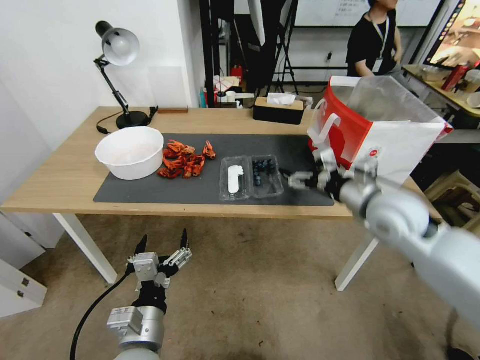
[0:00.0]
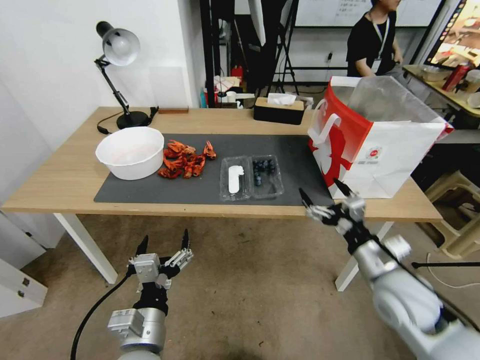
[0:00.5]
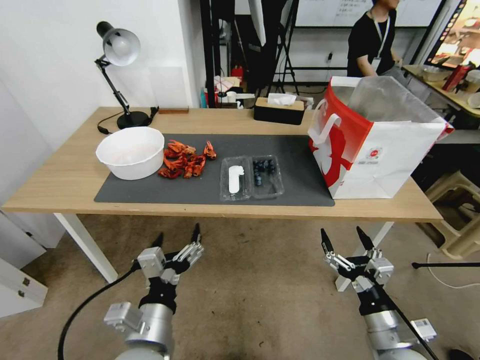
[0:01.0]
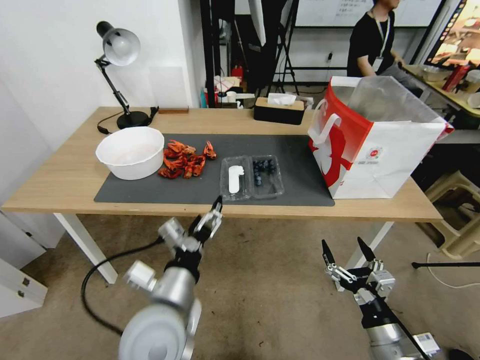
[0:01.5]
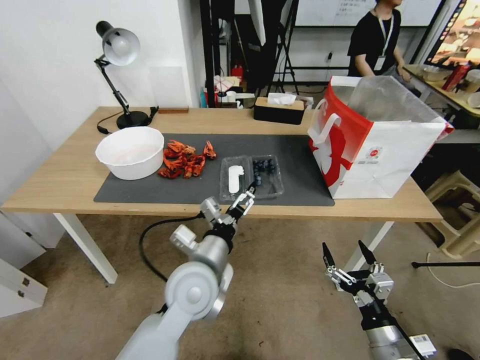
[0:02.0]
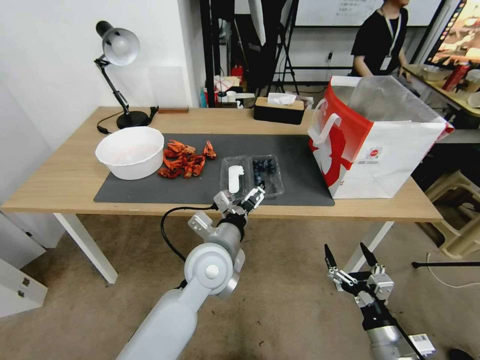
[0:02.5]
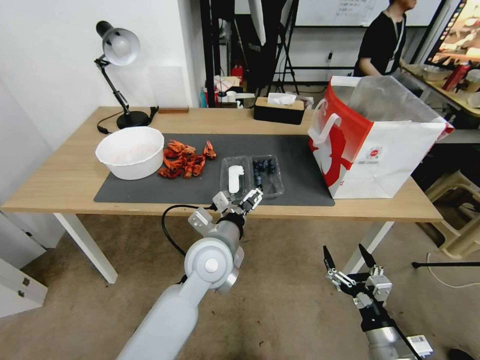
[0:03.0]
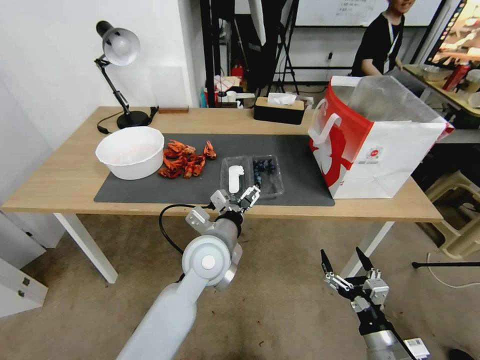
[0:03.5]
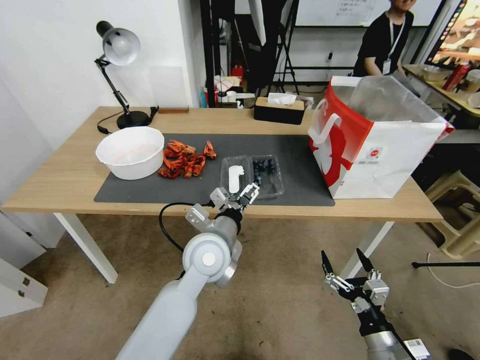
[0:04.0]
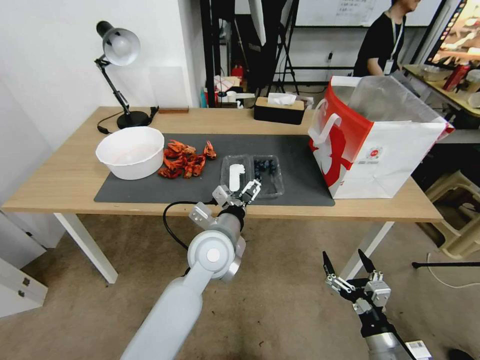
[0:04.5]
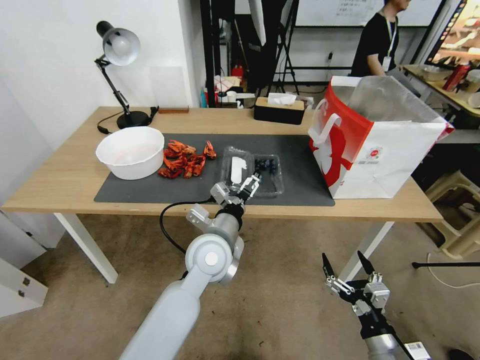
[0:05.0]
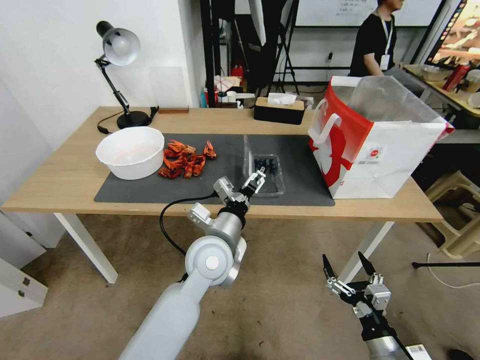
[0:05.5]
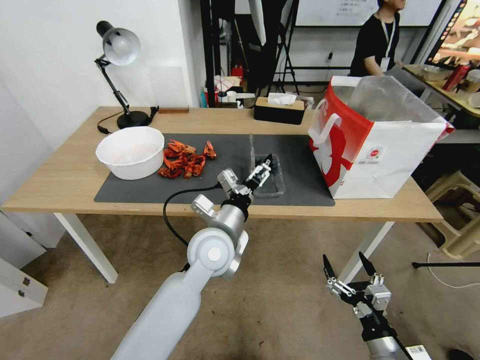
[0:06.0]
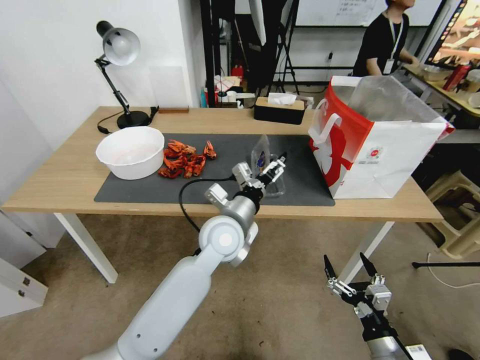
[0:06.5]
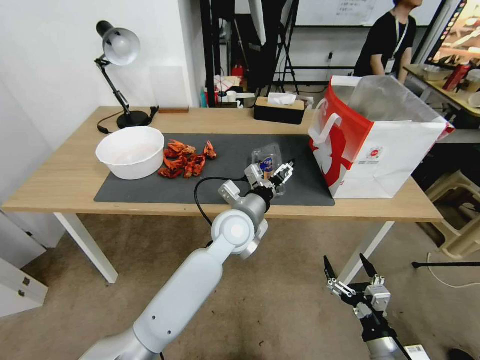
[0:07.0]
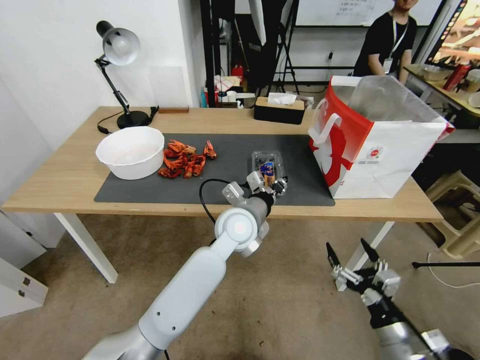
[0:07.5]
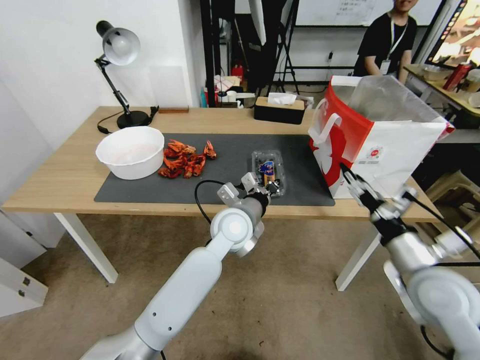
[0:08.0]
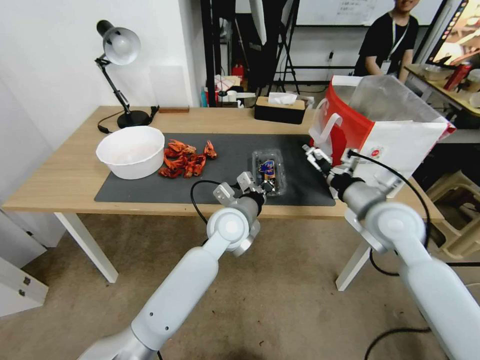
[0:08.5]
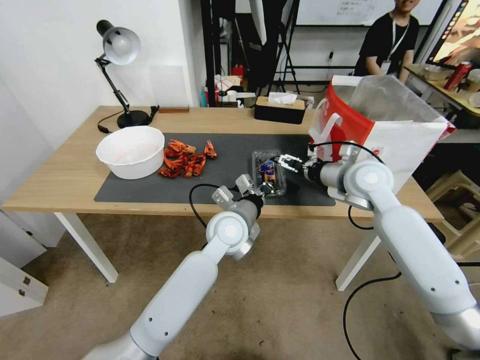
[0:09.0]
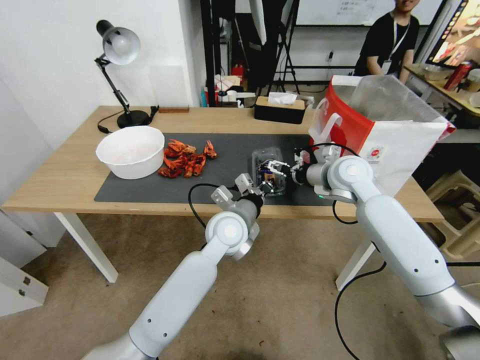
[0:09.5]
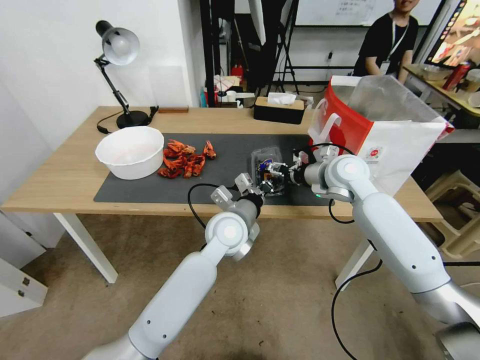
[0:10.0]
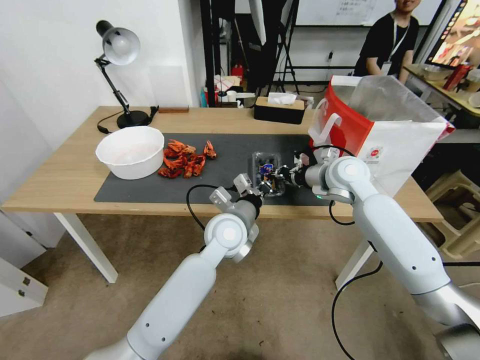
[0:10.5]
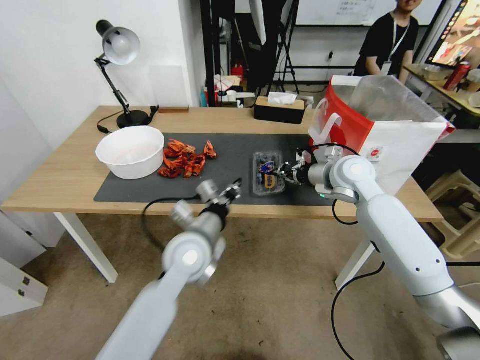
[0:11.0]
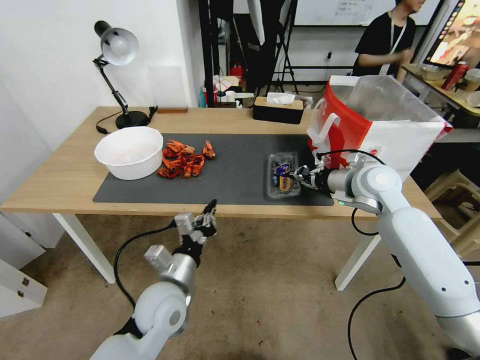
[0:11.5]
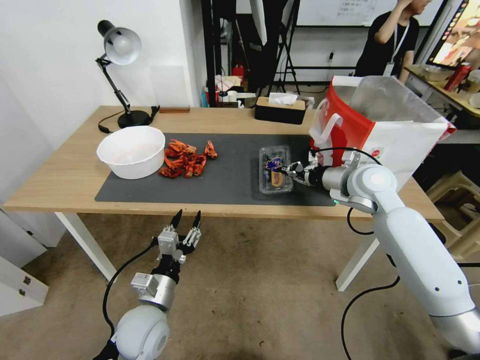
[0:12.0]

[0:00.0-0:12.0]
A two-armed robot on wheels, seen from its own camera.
Task of the whole recording: Close the takeout container lid, then place the container into the takeout bag.
0:00.0 to 0:02.0: The left gripper shifts some 15 cm forward, to the right and upward. The right gripper travels backward and downward by approximately 30 cm.
0:02.0 to 0:04.0: The left gripper heads forward, covering approximately 5 cm.
0:04.0 to 0:06.0: The grippers stay close to where they were, moving slightly.
0:06.0 to 0:08.0: The left gripper moves forward, roughly 5 cm, and closes its fingers; the right gripper goes some 25 cm upward and forward.
0:08.0 to 0:10.0: The right gripper travels forward by about 25 cm.
0:10.0 to 0:12.0: The right gripper moves about 5 cm, and closes. The left gripper is displaced to the left, backward and downward by about 25 cm, and opens its fingers.

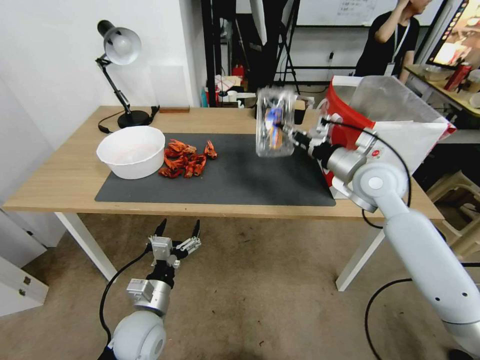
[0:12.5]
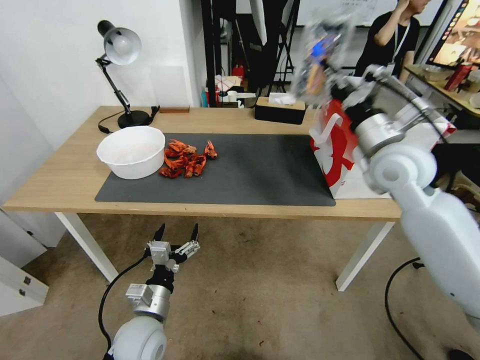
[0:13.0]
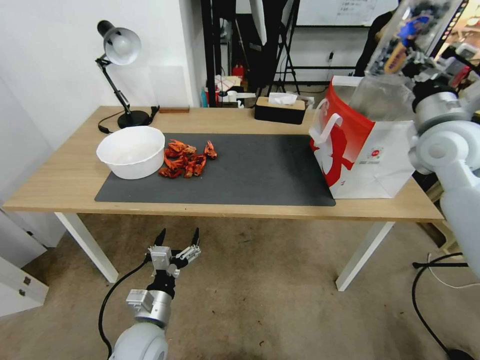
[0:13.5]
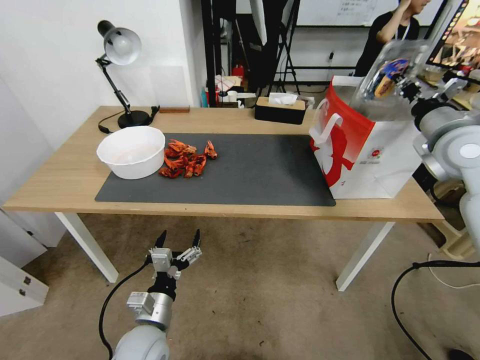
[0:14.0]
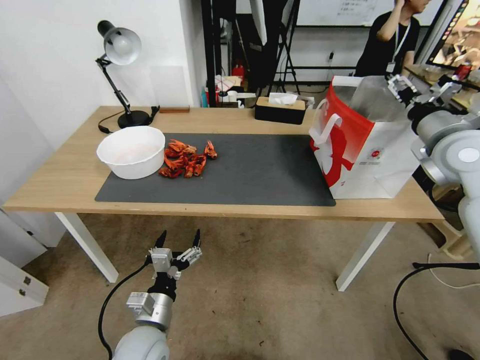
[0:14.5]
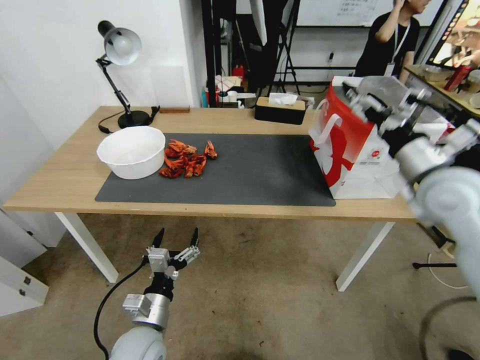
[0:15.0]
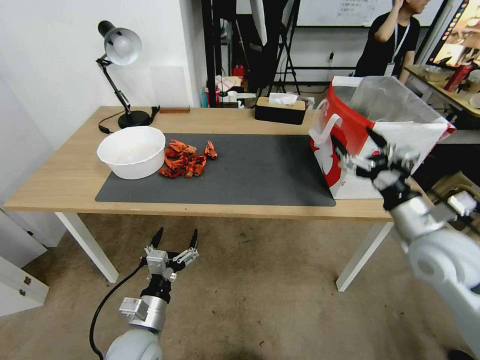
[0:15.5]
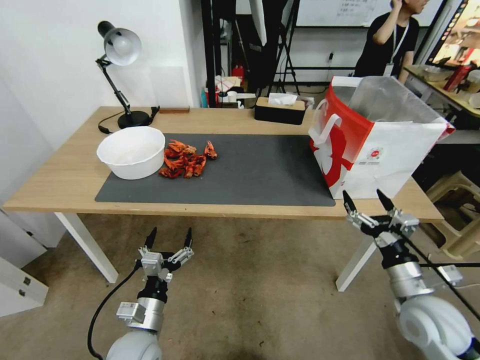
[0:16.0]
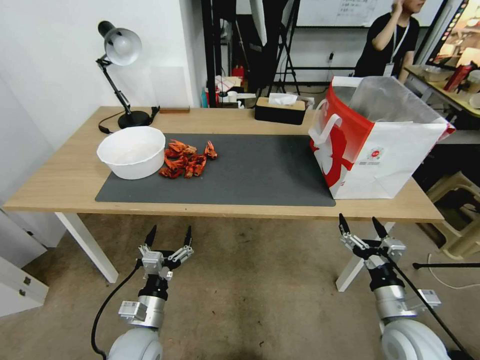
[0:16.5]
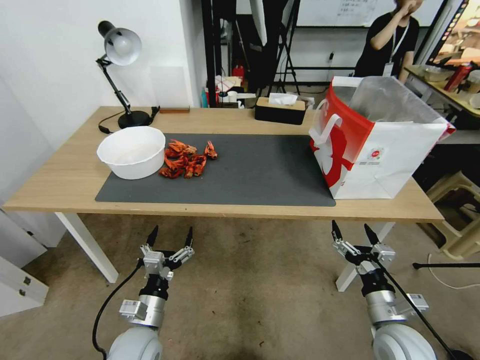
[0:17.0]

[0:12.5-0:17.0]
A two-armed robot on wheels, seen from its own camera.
Task of the whole recording: Close the takeout container lid, then place the container into the takeout bag.
0:12.5 to 0:14.5: The right gripper moves to the right and upward, approximately 15 cm, and opens.
0:14.5 to 0:17.0: The right gripper shifts some 40 cm downward and backward.

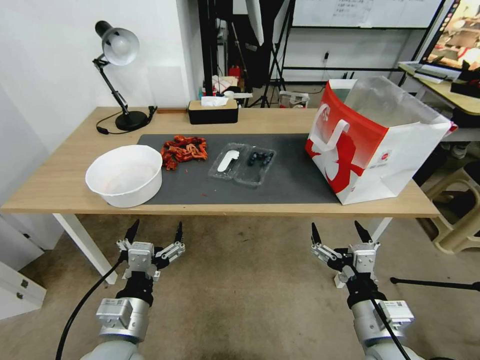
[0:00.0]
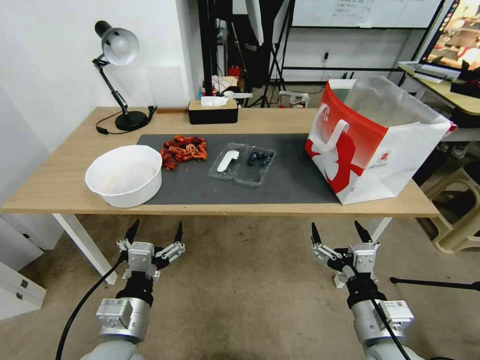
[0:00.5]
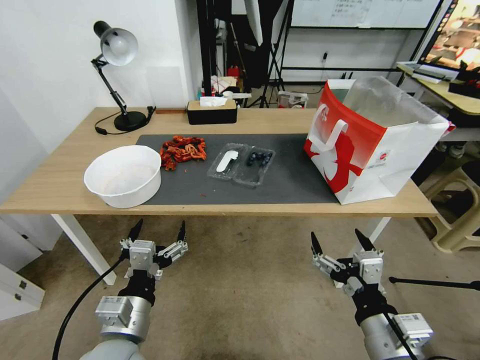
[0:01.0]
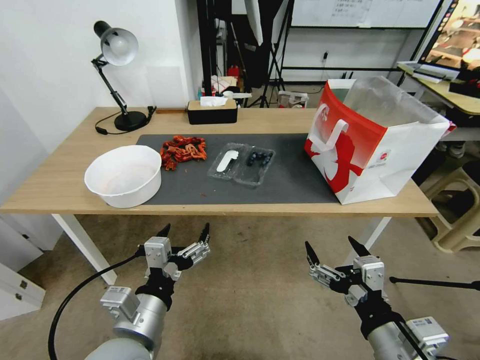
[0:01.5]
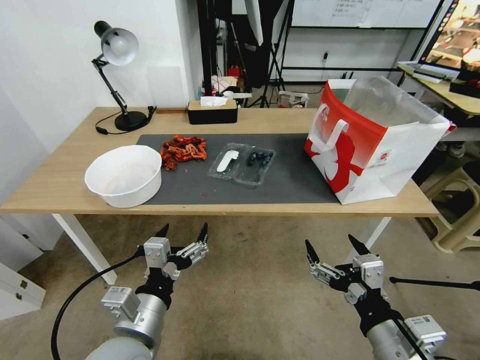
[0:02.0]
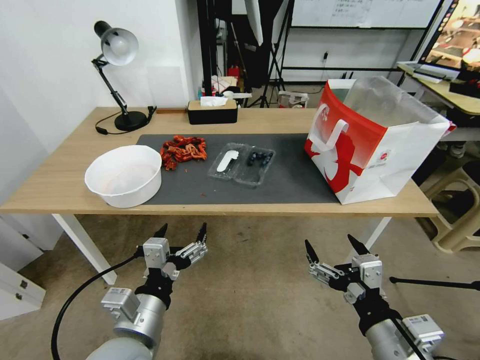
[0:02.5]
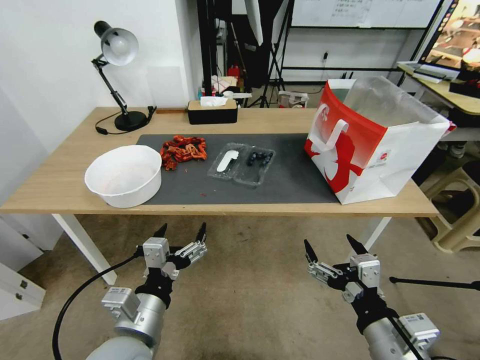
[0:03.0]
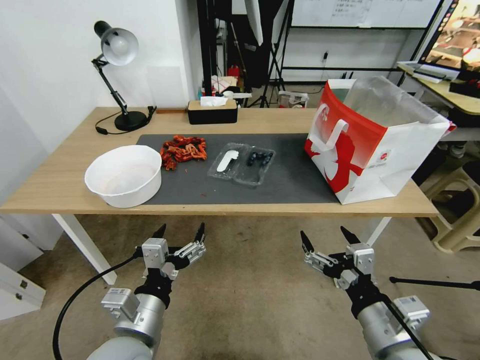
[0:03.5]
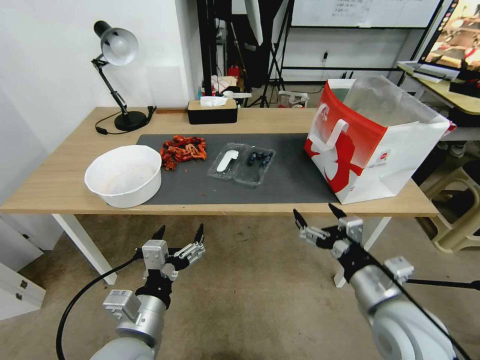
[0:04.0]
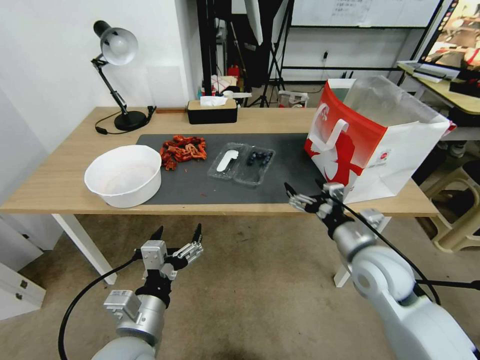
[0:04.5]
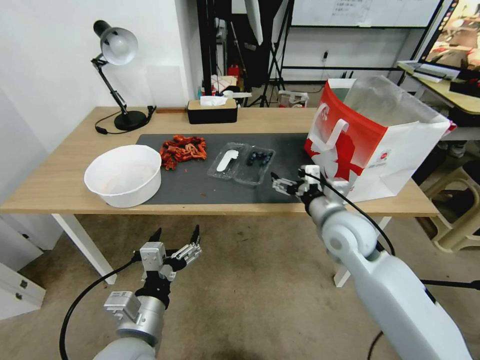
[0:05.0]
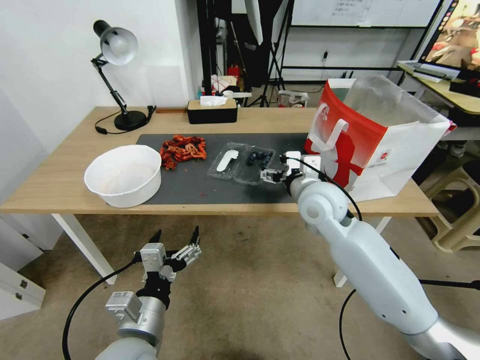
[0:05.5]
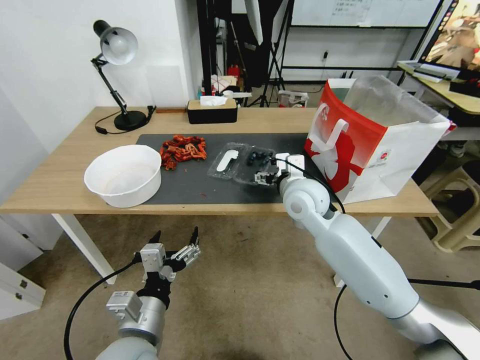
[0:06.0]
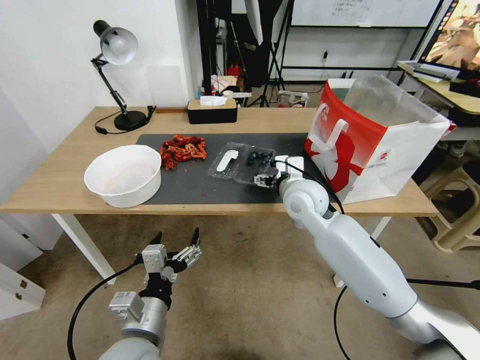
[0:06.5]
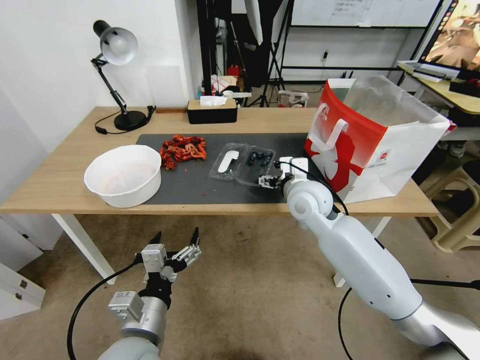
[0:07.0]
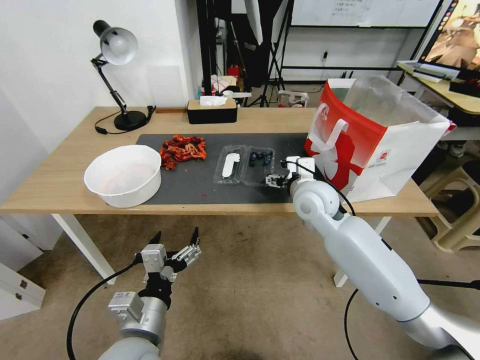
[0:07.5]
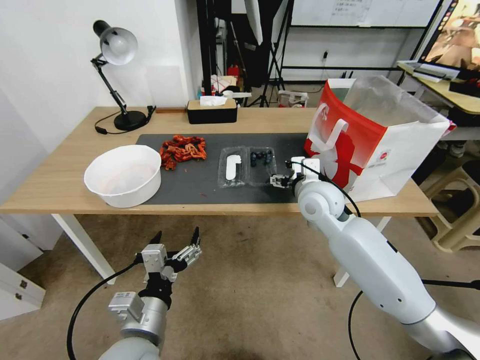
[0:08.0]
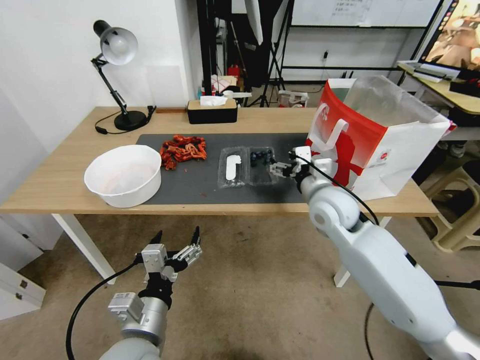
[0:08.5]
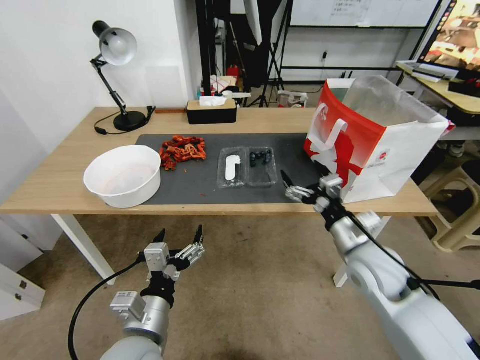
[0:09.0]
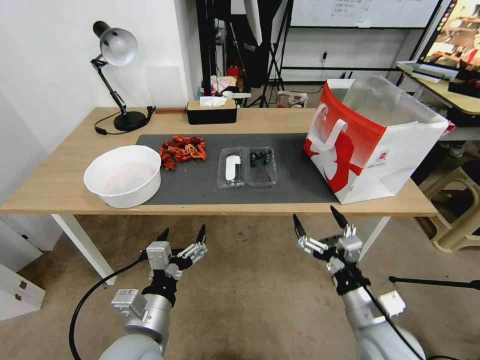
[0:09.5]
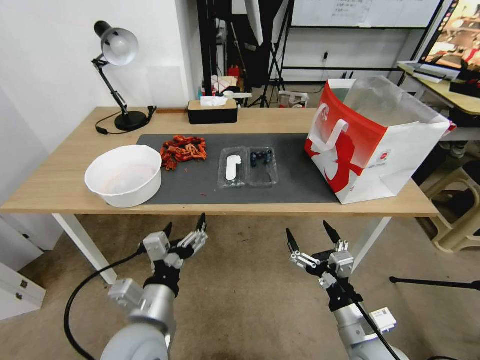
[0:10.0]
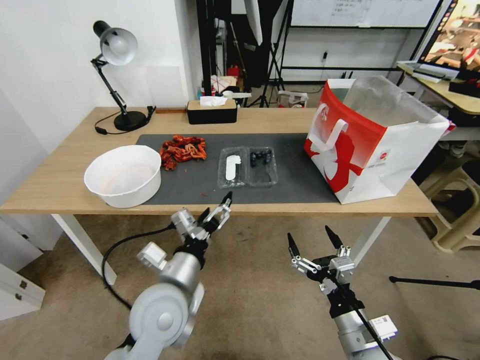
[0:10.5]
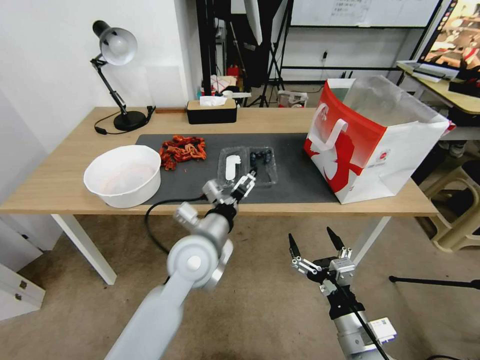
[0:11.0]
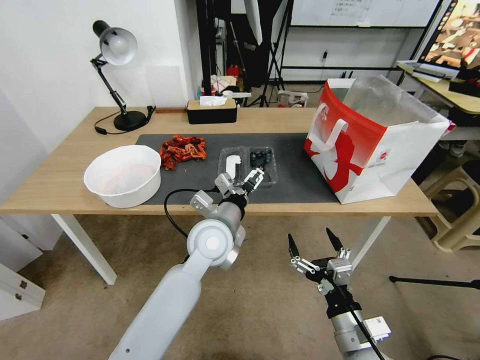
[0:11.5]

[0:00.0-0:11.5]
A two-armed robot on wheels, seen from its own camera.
Task of the whole recording: Close the takeout container lid, then place the container into the takeout bag.
0:02.0 to 0:04.0: The right gripper is displaced forward by roughly 10 cm.
0:04.0 to 0:06.0: The right gripper heads forward and to the left, covering roughly 25 cm.
0:06.0 to 0:07.5: The grippers make only small movements.
0:07.5 to 0:09.5: The right gripper moves backward and downward, roughly 30 cm.
0:09.5 to 0:11.5: The left gripper shifts about 20 cm forward and to the right.
